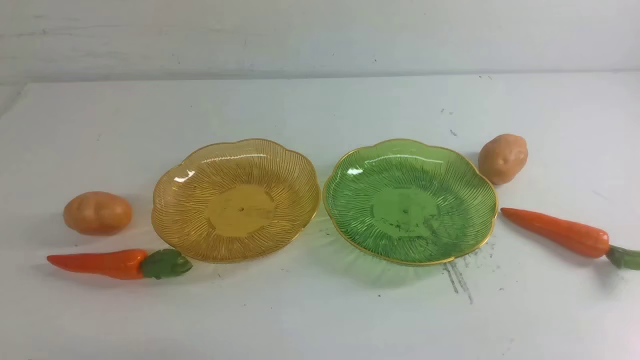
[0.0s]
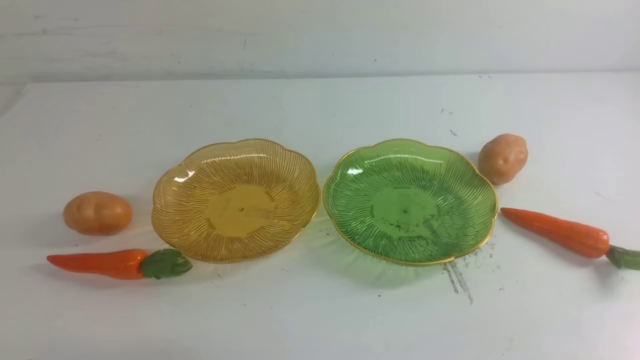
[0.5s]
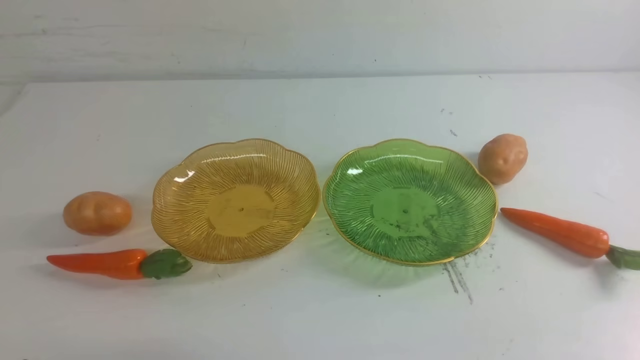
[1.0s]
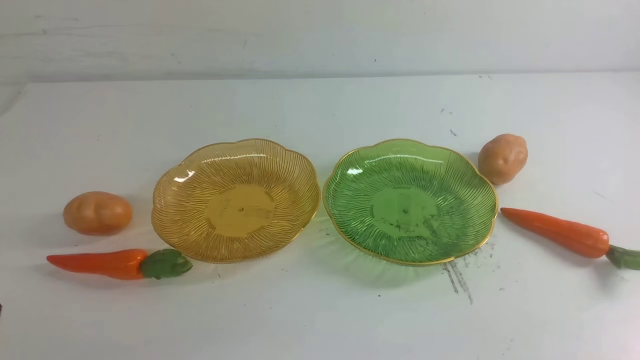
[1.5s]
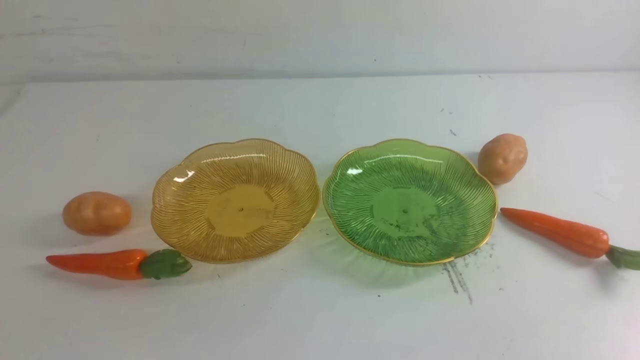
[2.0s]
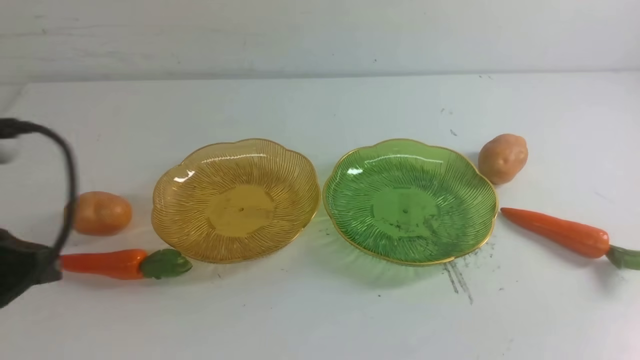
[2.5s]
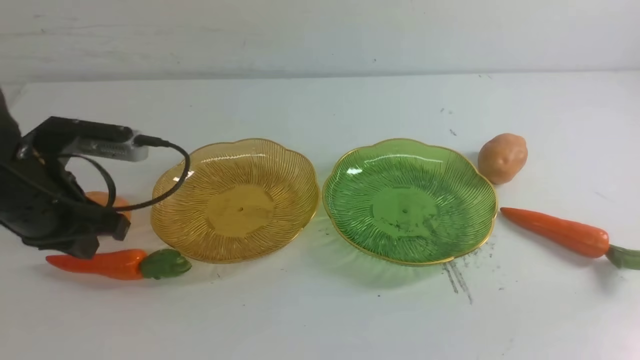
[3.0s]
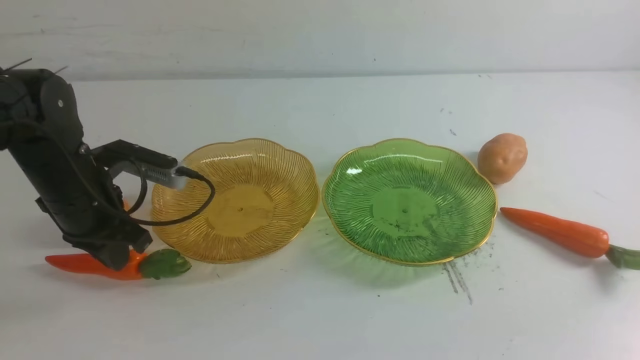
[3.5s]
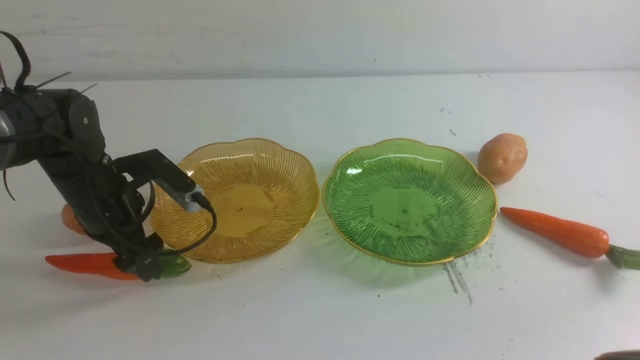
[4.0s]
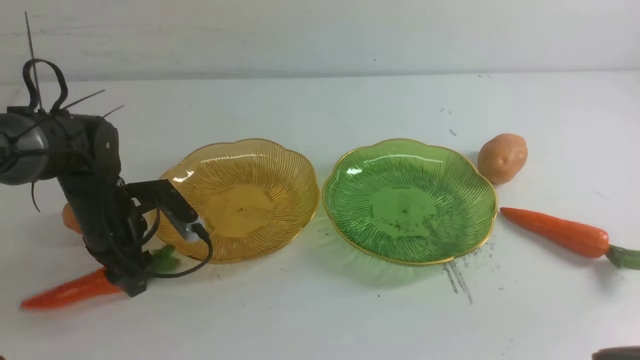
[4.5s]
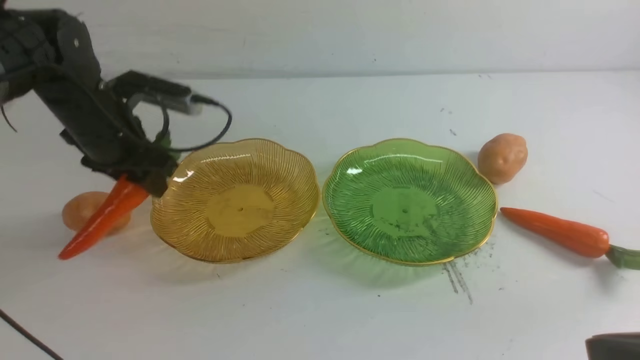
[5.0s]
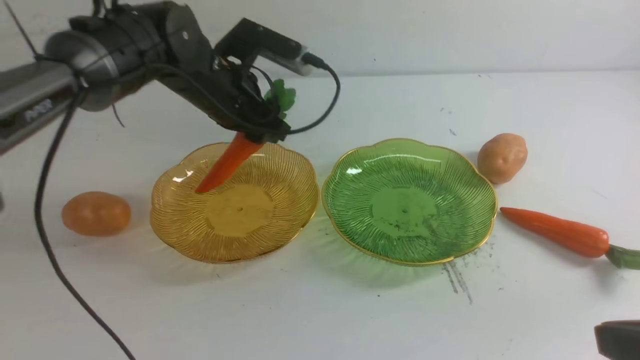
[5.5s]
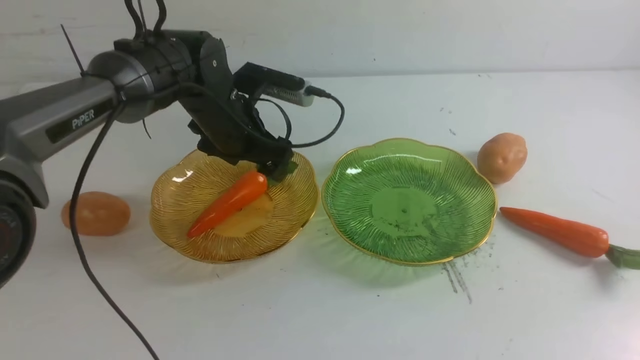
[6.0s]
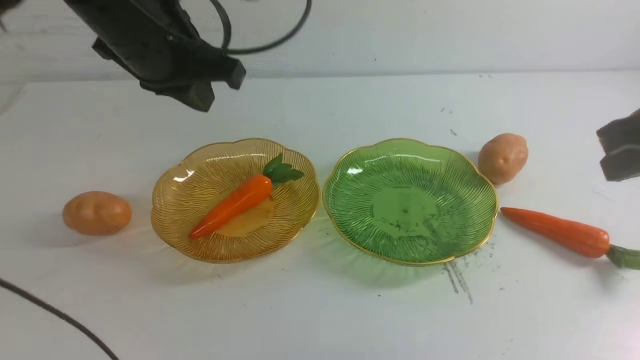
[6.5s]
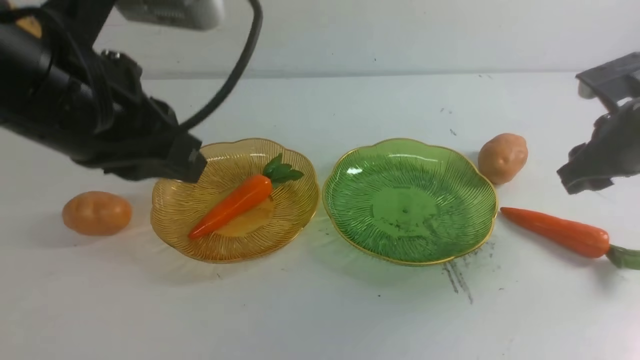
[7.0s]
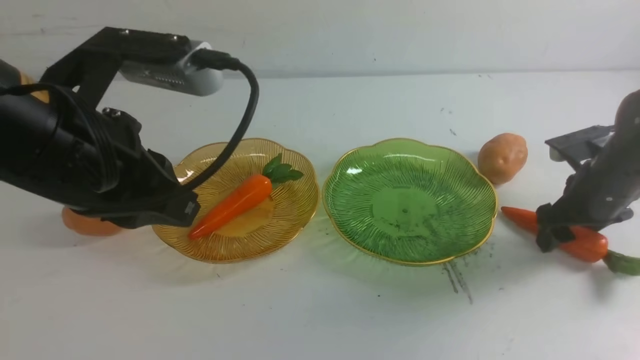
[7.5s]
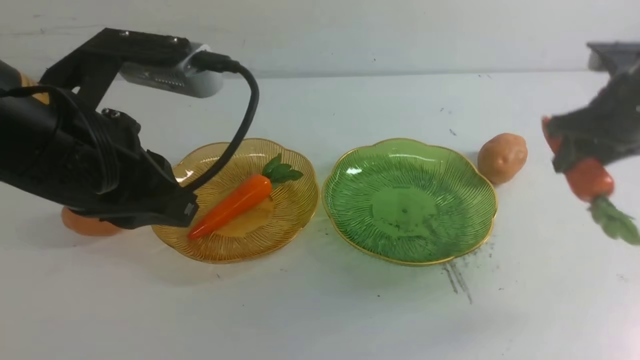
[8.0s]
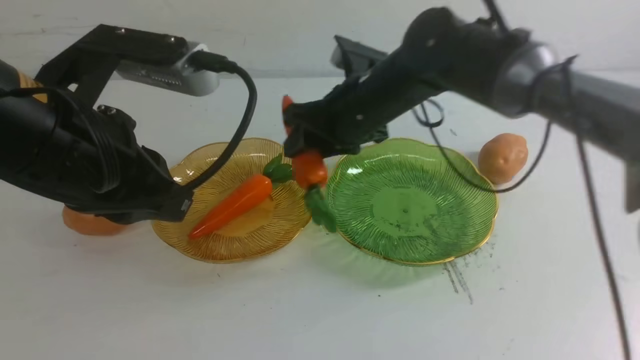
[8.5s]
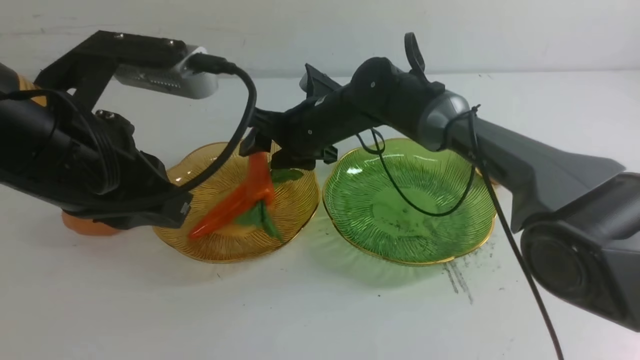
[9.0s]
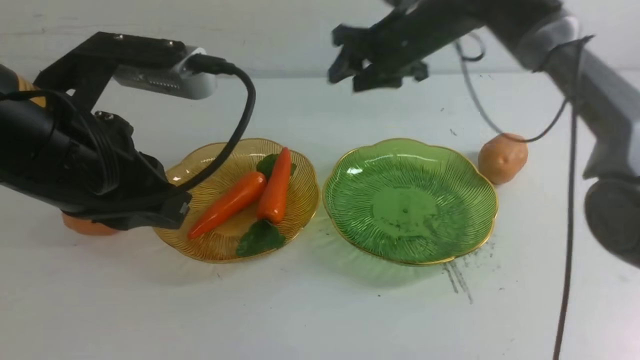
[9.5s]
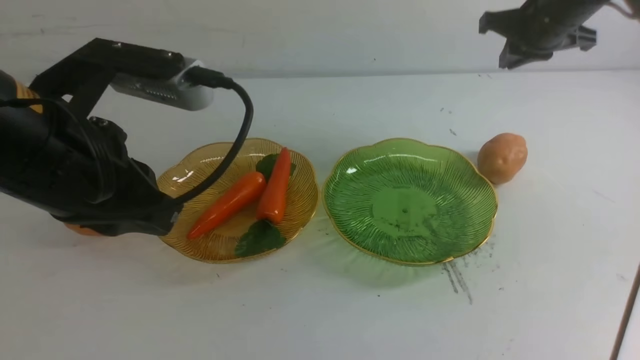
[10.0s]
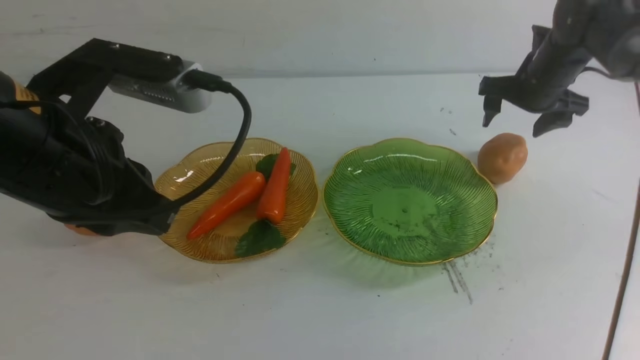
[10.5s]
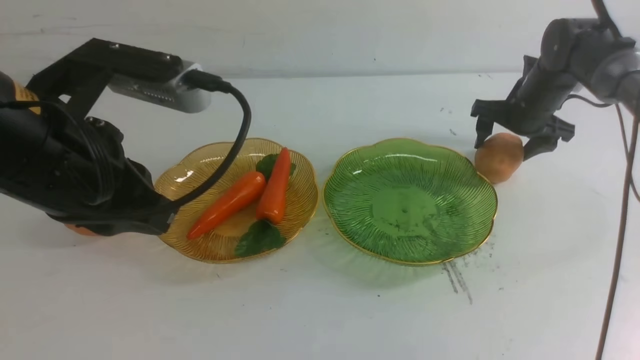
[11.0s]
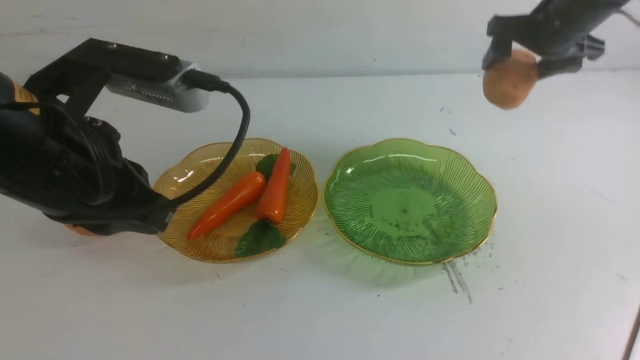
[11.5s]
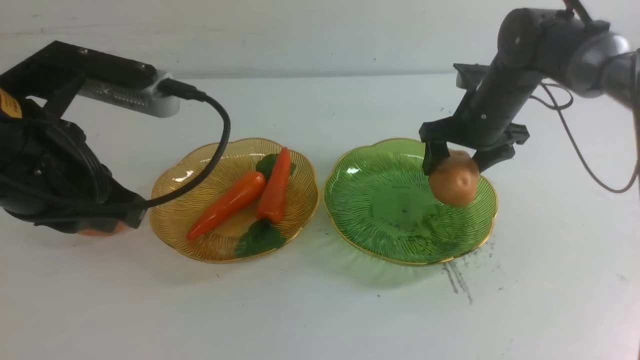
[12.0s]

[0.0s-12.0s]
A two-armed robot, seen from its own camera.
Step, 0.0s to 6.0s: use the left arm to grab a carrot and put it into the left plate.
Step, 6.5s to 9.5s: use the right arm to grab a carrot and put it into the left plate.
2.0s to 4.0s: The left gripper goes roughly 30 cm forward, and opens up.
4.0s to 6.0s: The right gripper heads upward and forward, covering roughly 10 cm, while the left gripper heads to the right, forward and upward, covering approximately 15 cm.
6.0s to 8.0s: The left gripper heads backward and upward, covering roughly 25 cm, and closes up; the right gripper is displaced forward and downward by approximately 30 cm, and opens up.
8.0s to 10.0s: The right gripper shifts roughly 10 cm forward, and travels to the left and back again, approximately 25 cm each way.
10.0s to 12.0s: The right gripper moves up and down over approximately 10 cm, changing direction 2 times, and opens up.

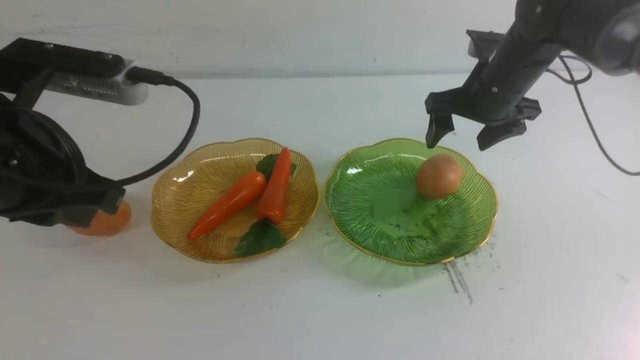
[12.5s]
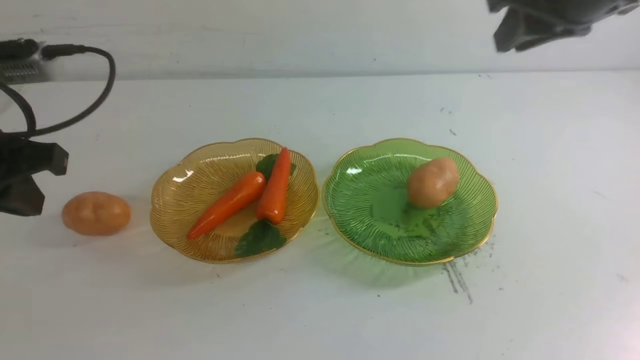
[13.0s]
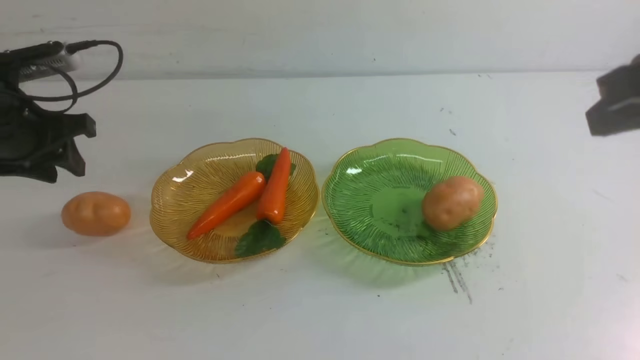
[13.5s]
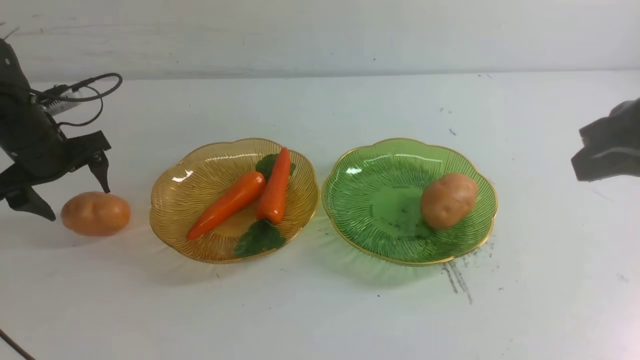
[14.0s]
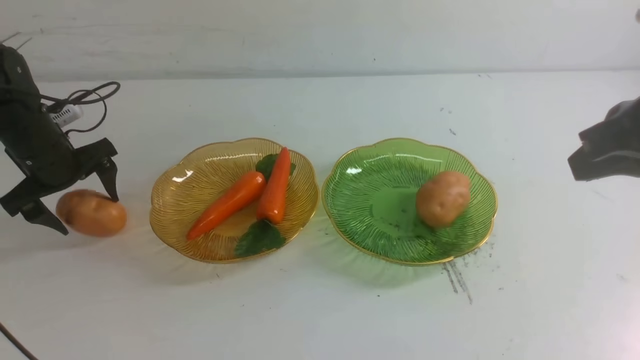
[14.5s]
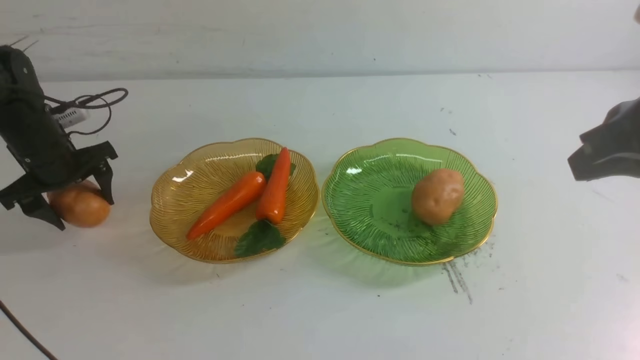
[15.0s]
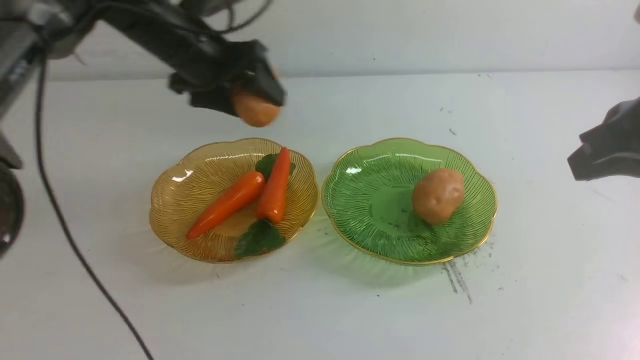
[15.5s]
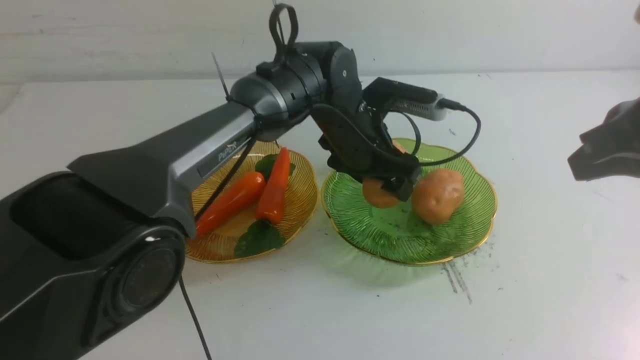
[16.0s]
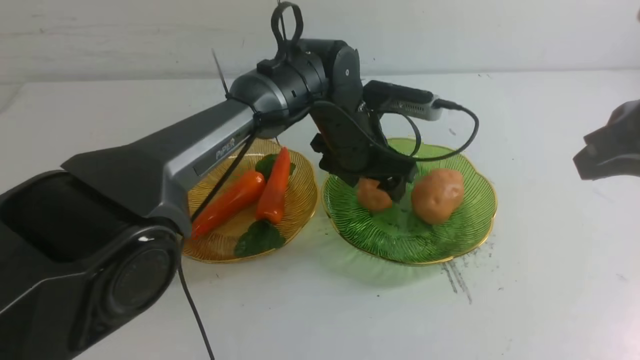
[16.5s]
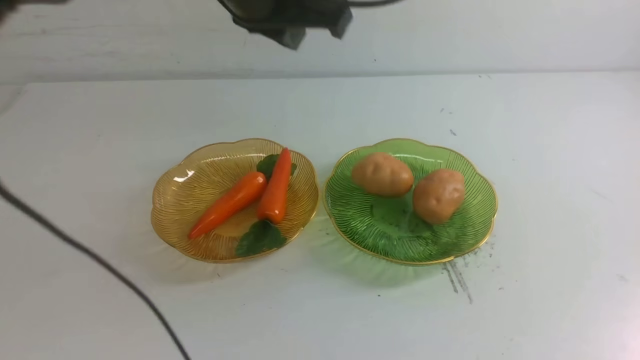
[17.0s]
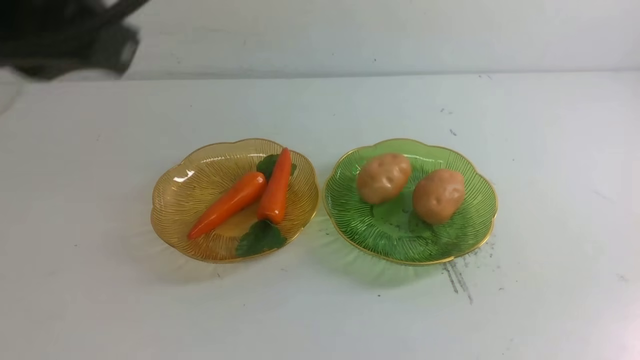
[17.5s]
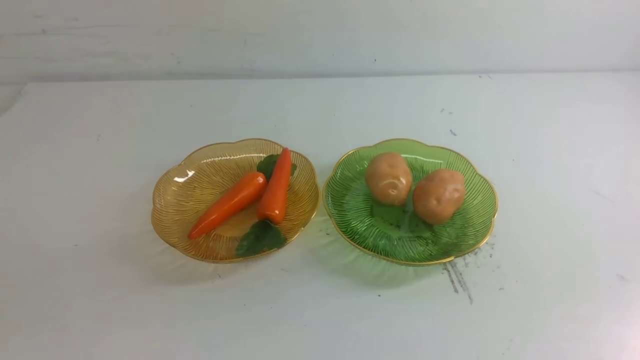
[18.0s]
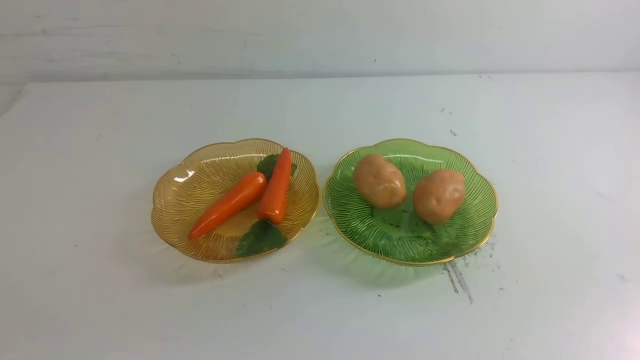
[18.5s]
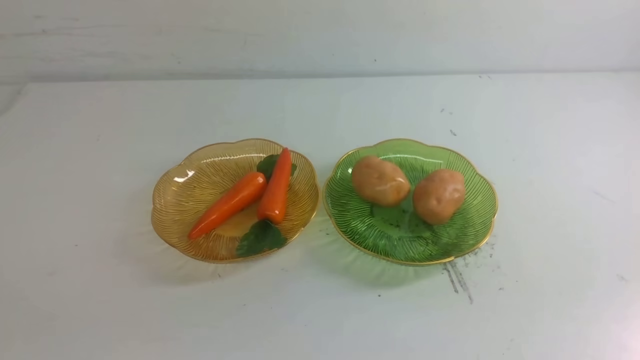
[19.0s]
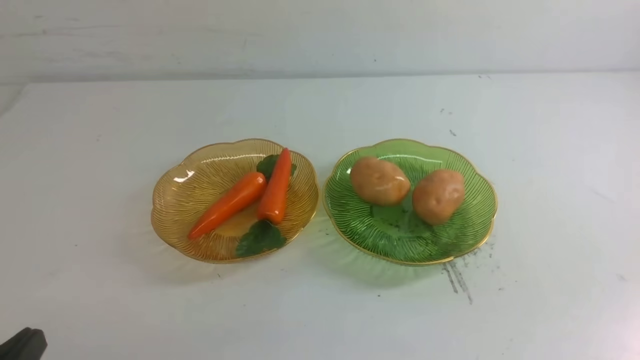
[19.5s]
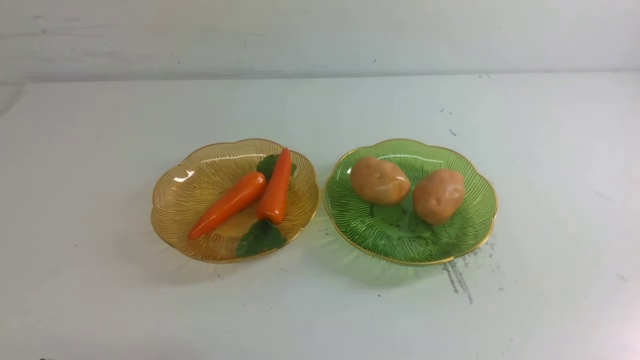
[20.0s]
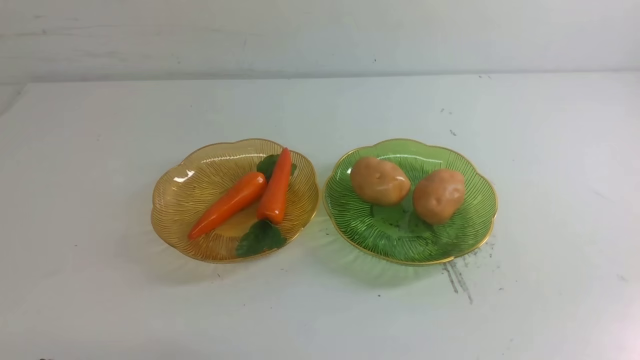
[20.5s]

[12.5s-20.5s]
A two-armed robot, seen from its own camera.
Step, 13.0s to 16.5s: Grab a potato with your left arm and put it on the right plate.
12.5s to 14.5s: The right gripper heads backward and upward, covering roughly 25 cm, and closes. Meanwhile the left gripper moves forward, downward and to the left, about 30 cm, and opens its fingers.
14.5s to 16.5s: The left gripper heads to the right, covering roughly 35 cm, and closes up.
16.5s to 18.5s: The left gripper moves backward and to the left, roughly 50 cm, and closes up. The right gripper heads backward, covering about 20 cm.
